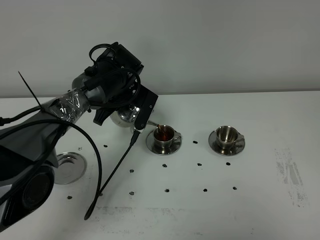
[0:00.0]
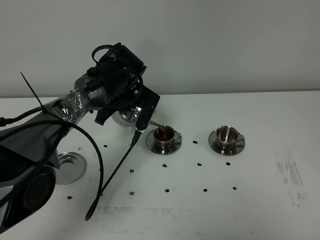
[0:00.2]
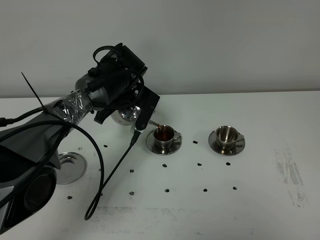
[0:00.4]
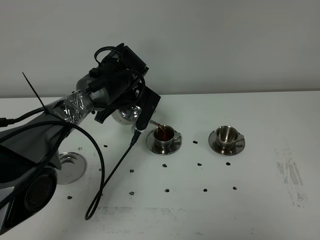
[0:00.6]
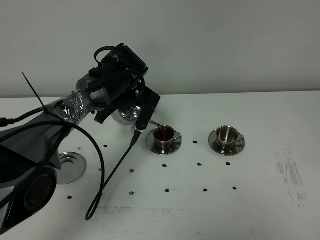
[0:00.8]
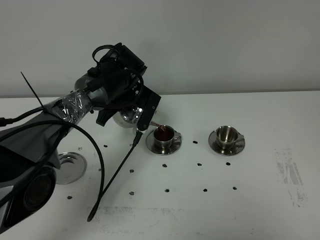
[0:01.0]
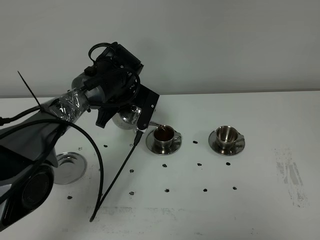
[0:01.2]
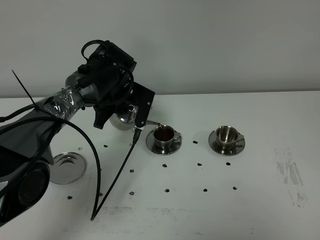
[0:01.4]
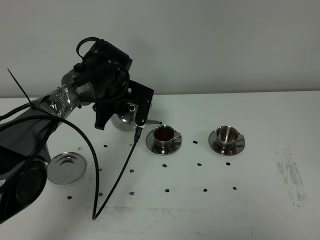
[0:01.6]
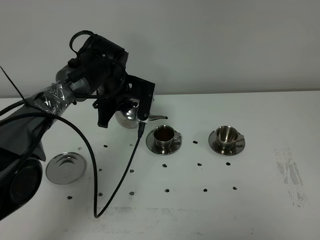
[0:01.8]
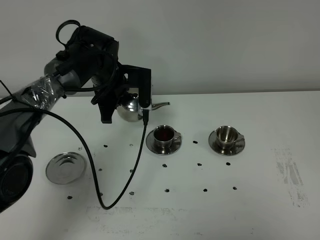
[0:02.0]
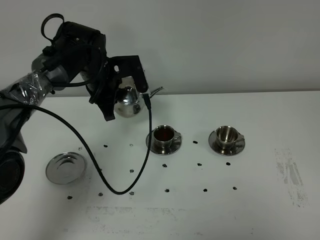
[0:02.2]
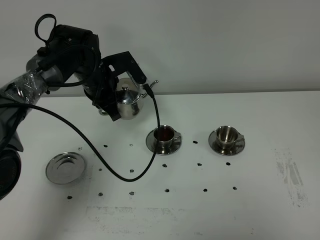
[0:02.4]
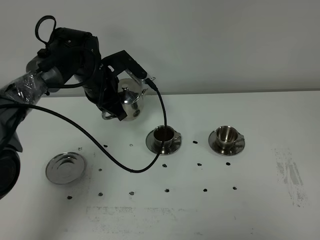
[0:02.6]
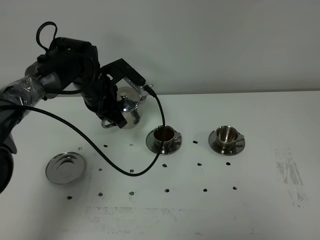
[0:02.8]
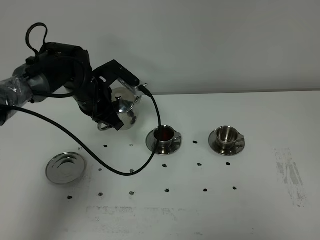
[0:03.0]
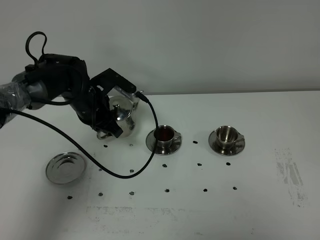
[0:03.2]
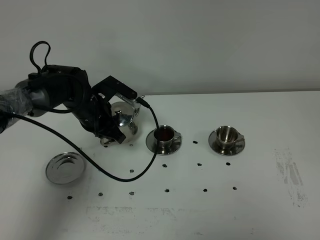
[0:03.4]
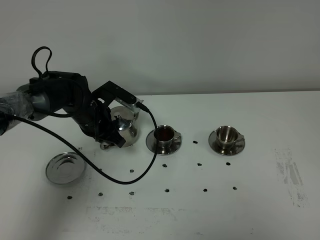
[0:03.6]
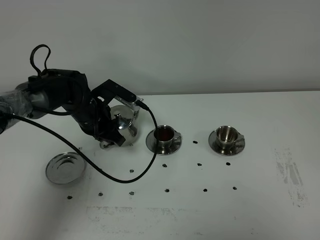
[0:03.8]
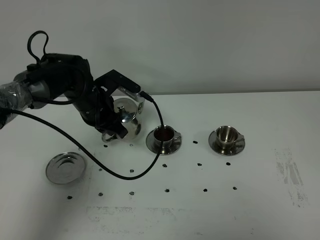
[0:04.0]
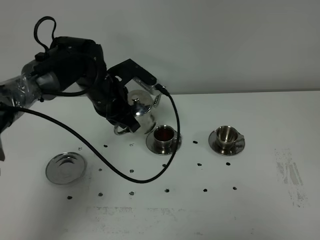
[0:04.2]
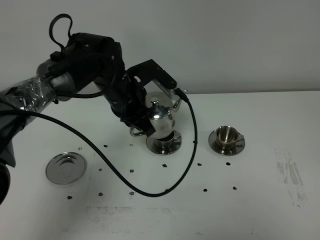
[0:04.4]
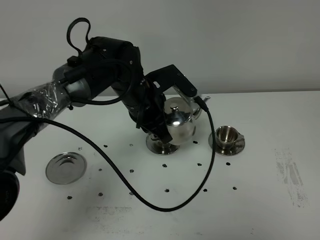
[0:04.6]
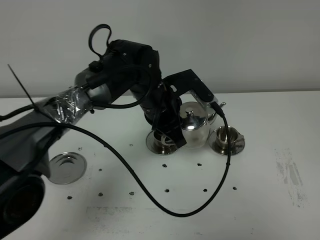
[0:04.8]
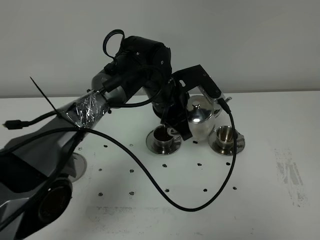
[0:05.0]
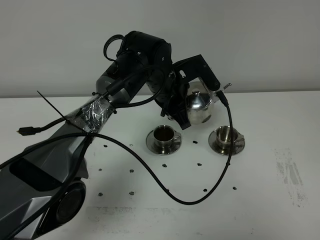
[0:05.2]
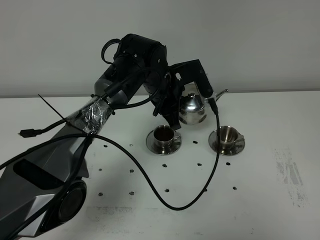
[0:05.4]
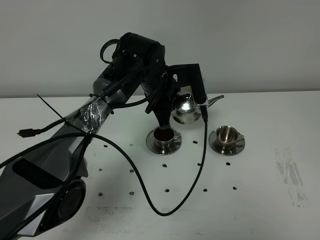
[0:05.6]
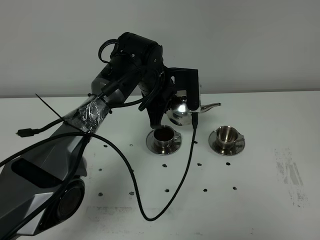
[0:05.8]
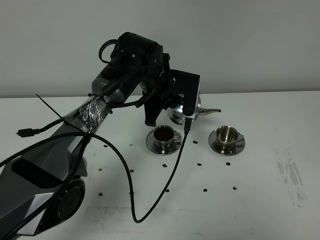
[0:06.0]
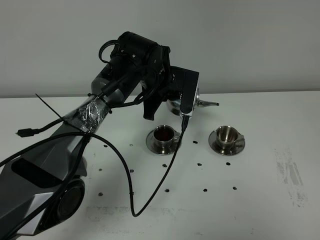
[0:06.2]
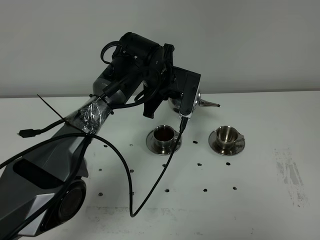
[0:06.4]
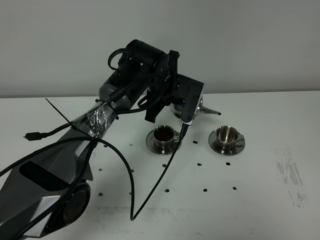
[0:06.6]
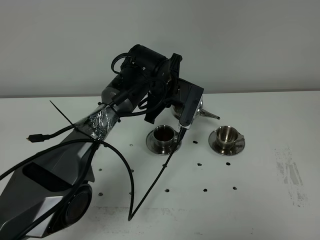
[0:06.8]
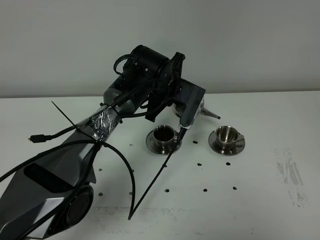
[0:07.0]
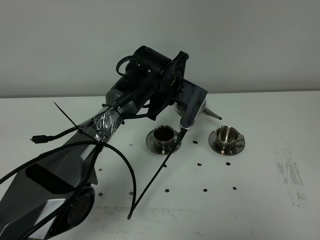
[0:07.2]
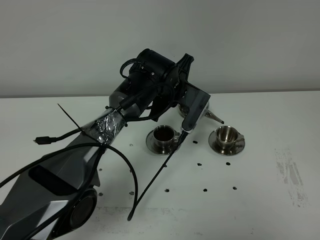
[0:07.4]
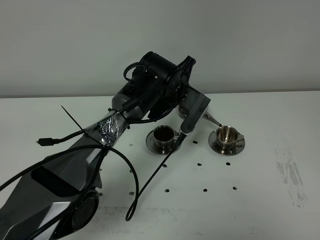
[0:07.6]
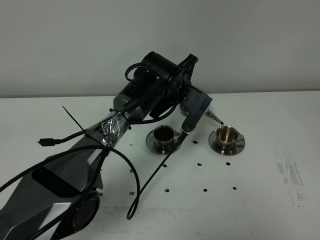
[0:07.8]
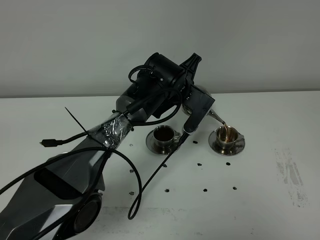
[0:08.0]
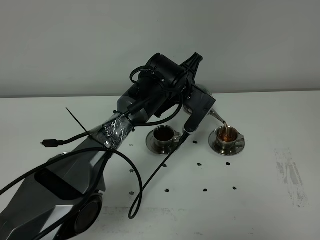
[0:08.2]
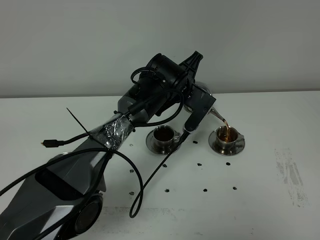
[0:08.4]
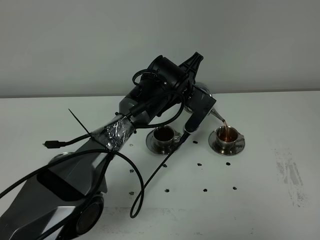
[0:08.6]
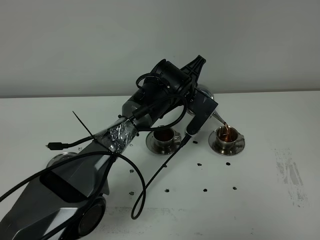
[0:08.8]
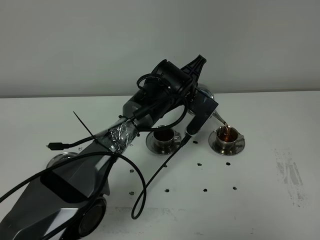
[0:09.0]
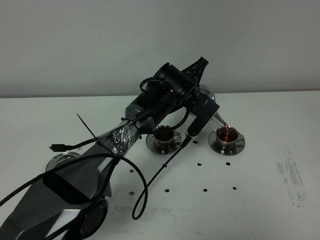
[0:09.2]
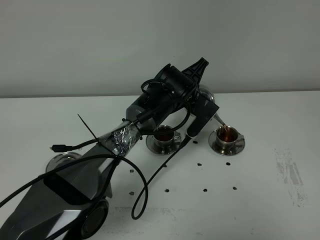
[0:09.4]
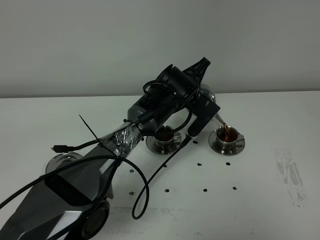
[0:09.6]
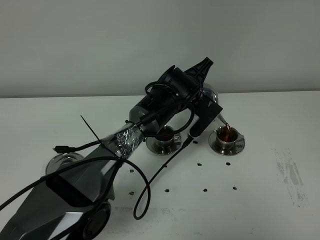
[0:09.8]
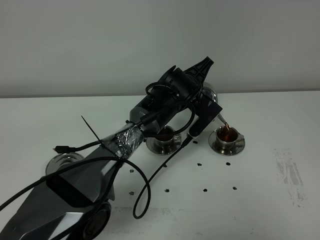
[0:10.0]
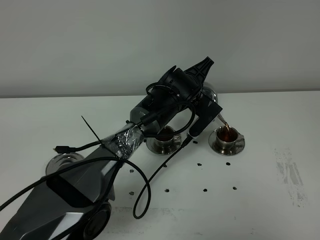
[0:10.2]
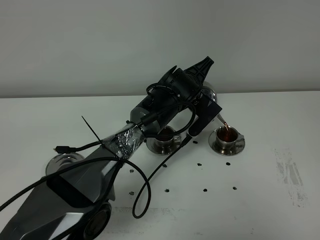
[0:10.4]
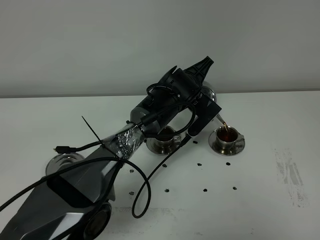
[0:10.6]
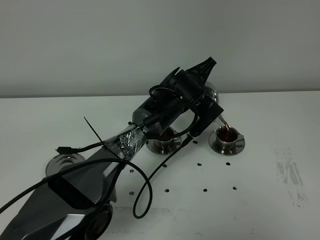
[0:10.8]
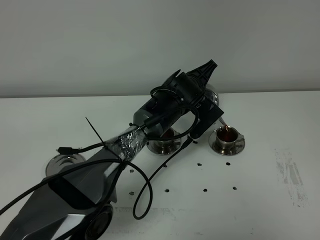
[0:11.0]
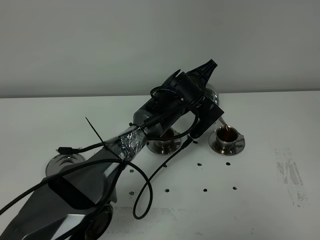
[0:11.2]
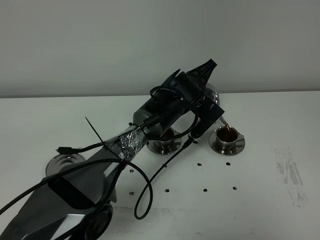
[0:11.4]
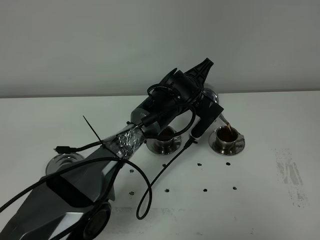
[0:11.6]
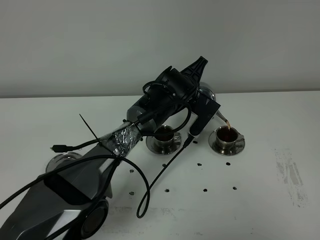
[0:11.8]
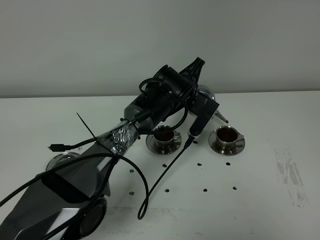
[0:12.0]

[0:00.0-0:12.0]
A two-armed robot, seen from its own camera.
Task of the whole recording: grasp the stainless steel teapot and pour the tea into the two stainless steel teacups one by one, put the stainless steel teapot back in its original place.
0:00.0 to 0:01.6: The grippers move only a little.
0:01.6 to 0:03.0: The left gripper is displaced to the left by some 5 cm.
0:03.0 to 0:04.4: The left gripper moves to the right, some 10 cm.
0:04.4 to 0:06.0: The left gripper is displaced to the right and forward by about 10 cm.
0:07.6 to 0:12.0: The grippers move only a little.

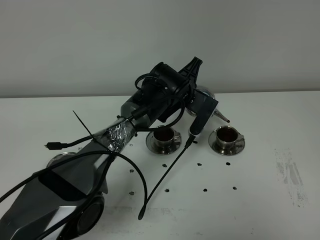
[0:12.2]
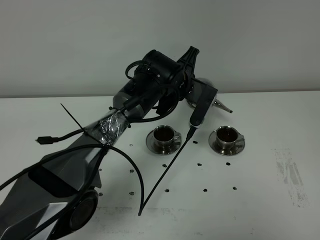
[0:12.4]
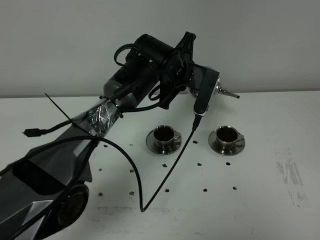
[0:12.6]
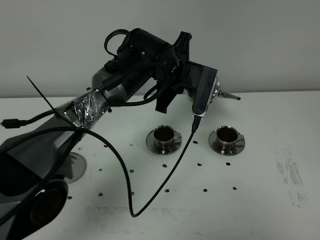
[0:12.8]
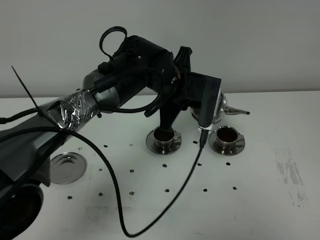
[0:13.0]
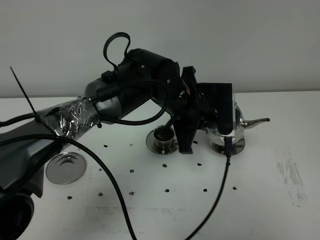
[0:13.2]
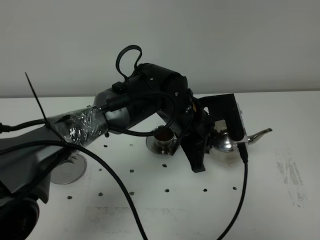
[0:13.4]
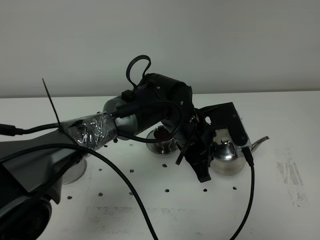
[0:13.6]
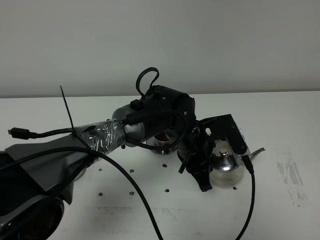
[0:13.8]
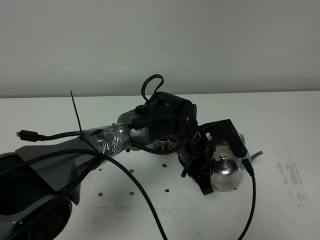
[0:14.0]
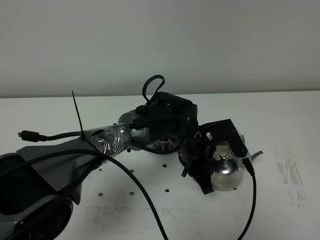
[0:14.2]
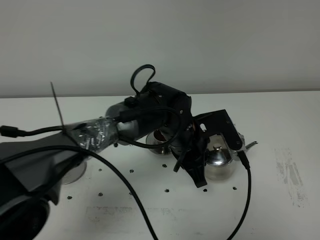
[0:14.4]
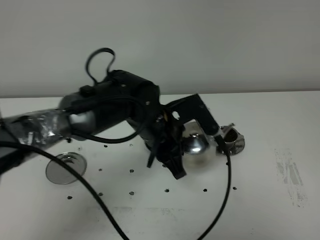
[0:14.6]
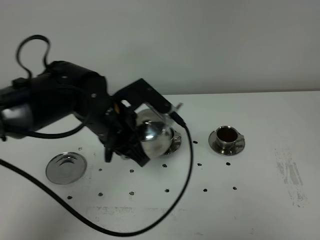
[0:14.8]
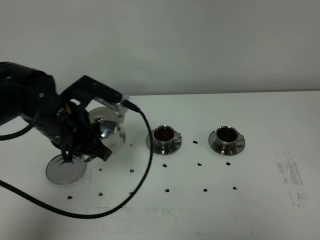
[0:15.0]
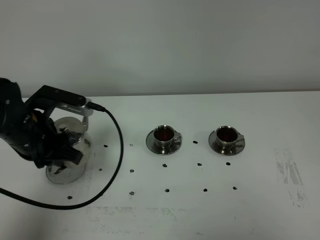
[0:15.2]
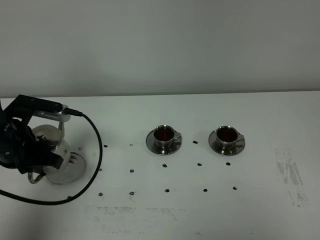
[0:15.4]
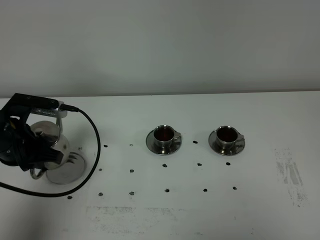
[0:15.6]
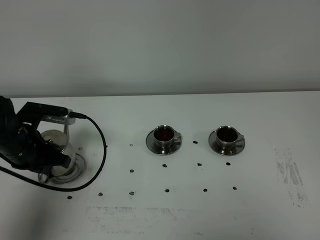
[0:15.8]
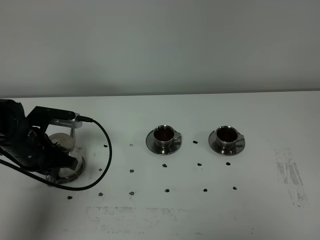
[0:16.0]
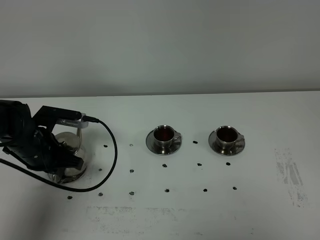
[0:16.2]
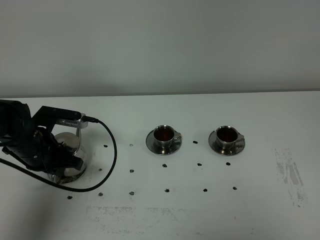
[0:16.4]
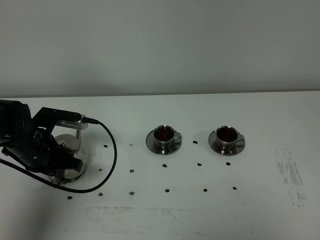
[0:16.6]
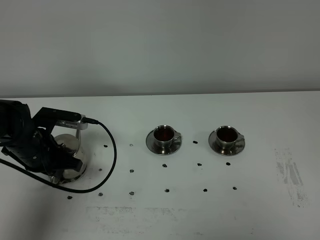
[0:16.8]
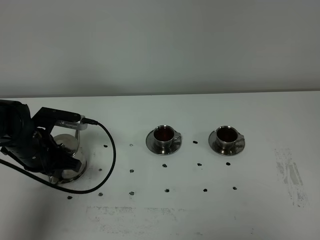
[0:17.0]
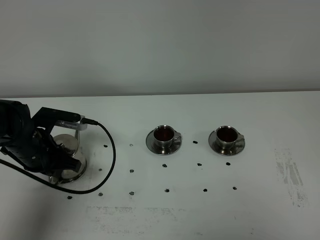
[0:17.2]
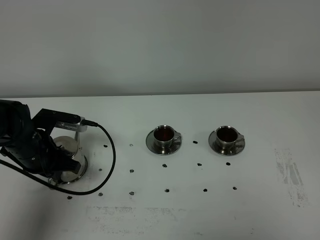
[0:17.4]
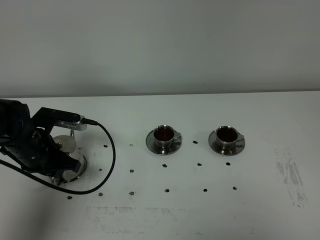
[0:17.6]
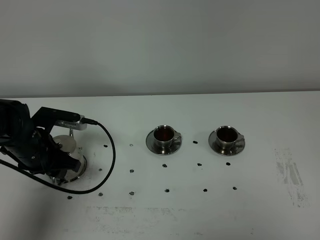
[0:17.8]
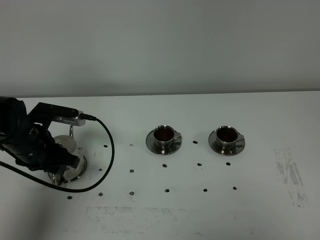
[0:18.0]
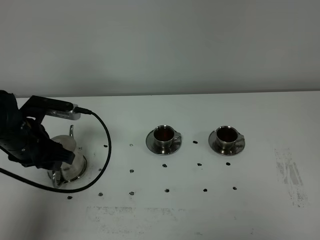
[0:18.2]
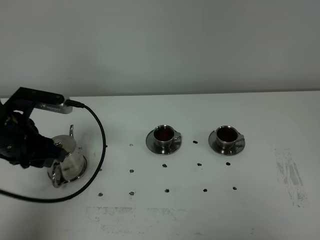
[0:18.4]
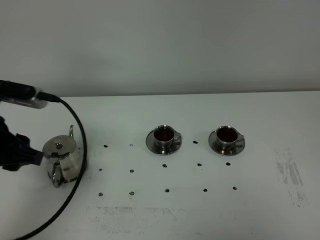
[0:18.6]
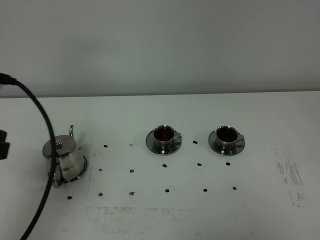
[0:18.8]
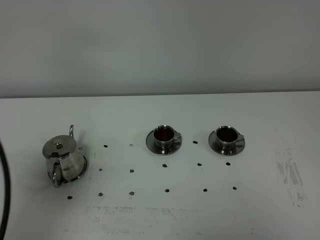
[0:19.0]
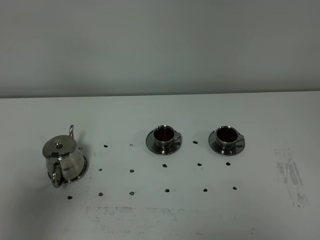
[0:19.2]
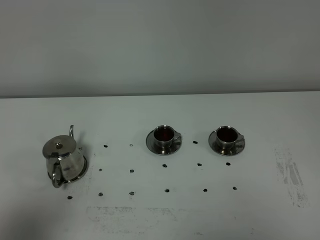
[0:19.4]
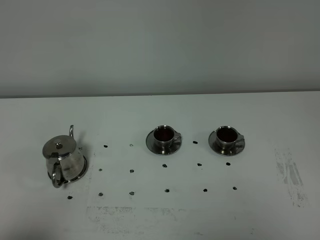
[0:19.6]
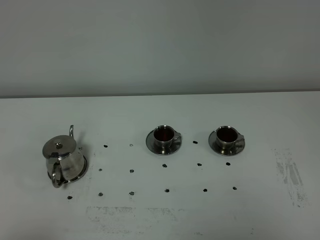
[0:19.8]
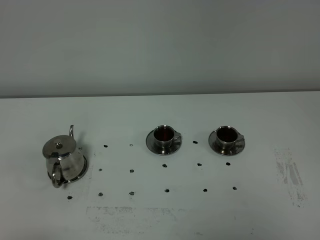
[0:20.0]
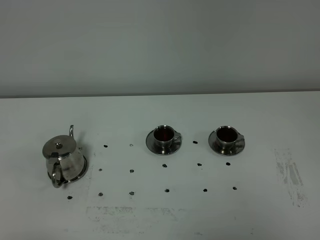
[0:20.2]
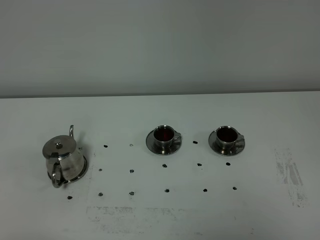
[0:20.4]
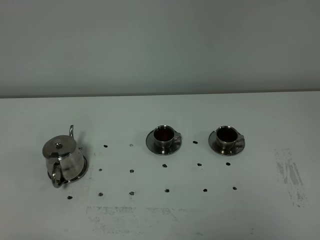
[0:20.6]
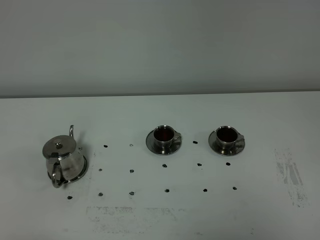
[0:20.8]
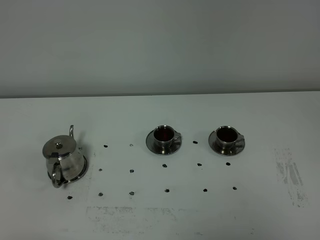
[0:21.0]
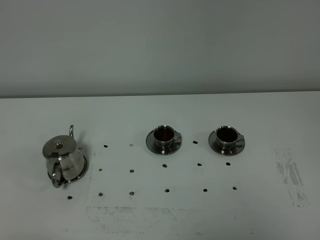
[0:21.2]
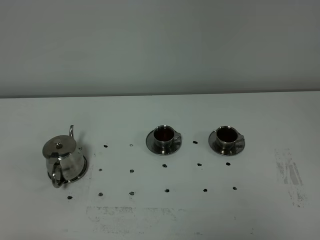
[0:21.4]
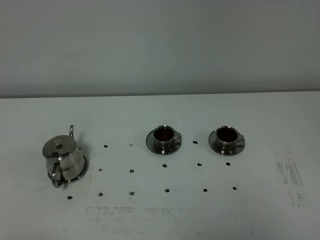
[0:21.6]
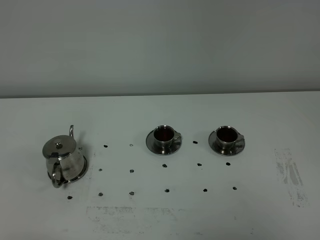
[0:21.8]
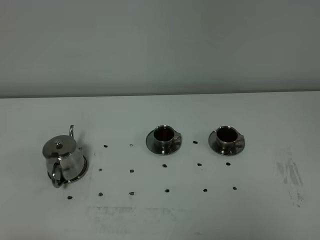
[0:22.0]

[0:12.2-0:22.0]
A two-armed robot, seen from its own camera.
Task of the whole recording: grasp the stainless steel teapot and pour the tea into the two stainless steel teacups one by one, put the stainless steel teapot back in its original place.
0:12.2 to 0:13.6: The left gripper goes roughly 10 cm backward.
0:13.6 to 0:15.0: The left gripper travels to the left by approximately 20 cm.
0:15.0 to 0:16.4: The left gripper goes roughly 10 cm downward and to the left.
0:16.4 to 0:17.8: The left gripper opens.
0:17.8 to 0:19.2: The left gripper travels backward and upward by approximately 35 cm.
0:19.2 to 0:20.6: The left gripper travels downward and backward by about 15 cm.
0:20.6 to 0:22.0: Neither gripper changes place.
